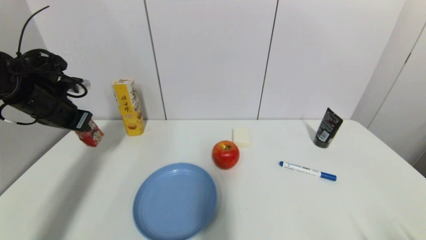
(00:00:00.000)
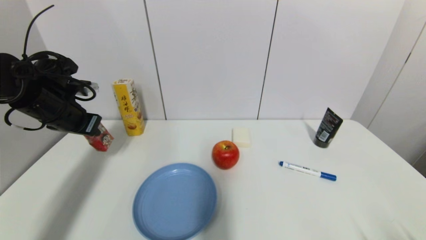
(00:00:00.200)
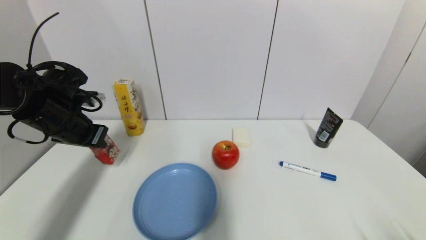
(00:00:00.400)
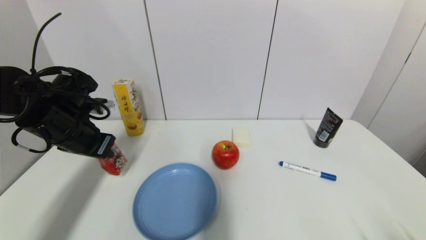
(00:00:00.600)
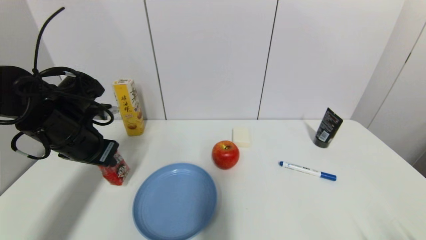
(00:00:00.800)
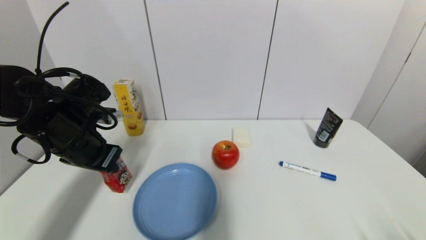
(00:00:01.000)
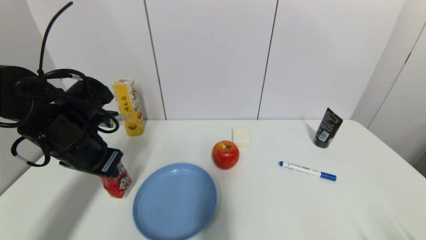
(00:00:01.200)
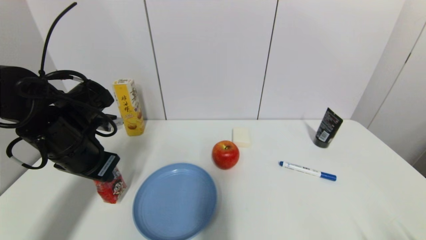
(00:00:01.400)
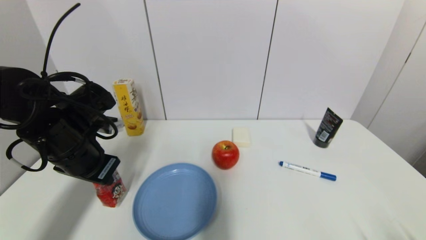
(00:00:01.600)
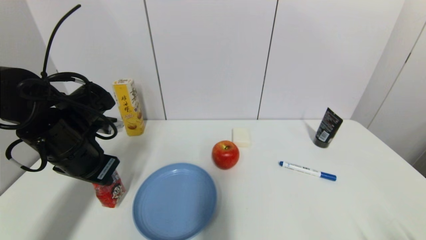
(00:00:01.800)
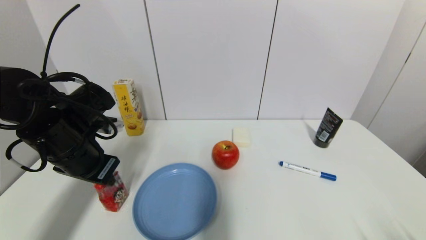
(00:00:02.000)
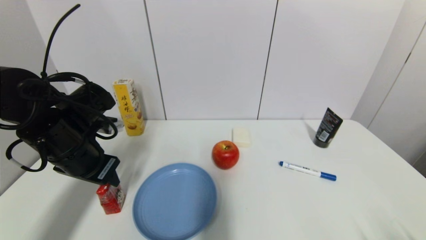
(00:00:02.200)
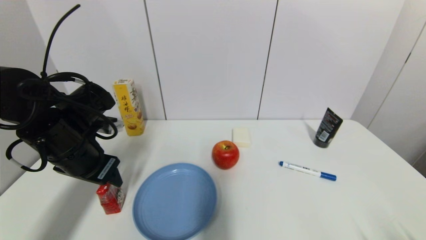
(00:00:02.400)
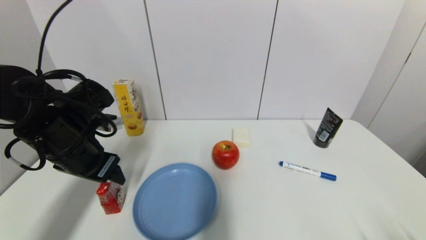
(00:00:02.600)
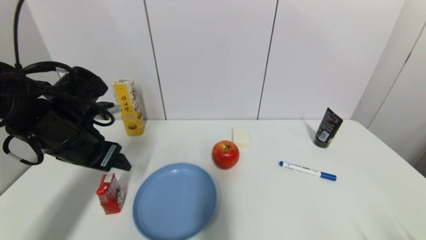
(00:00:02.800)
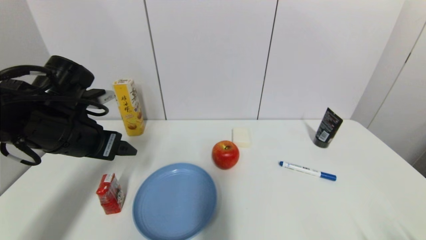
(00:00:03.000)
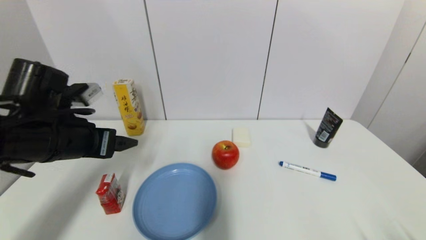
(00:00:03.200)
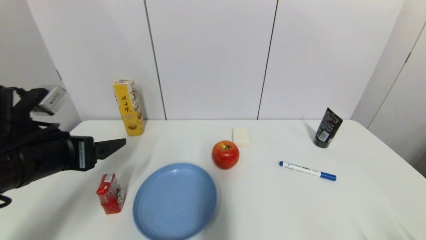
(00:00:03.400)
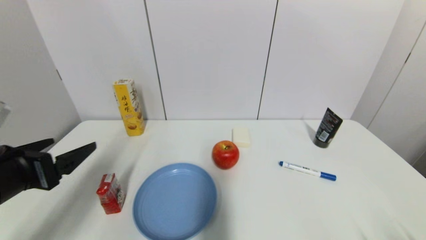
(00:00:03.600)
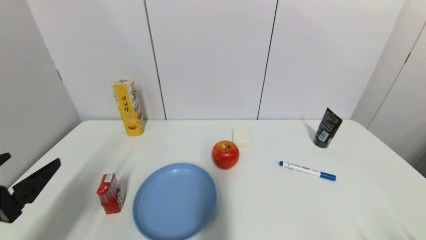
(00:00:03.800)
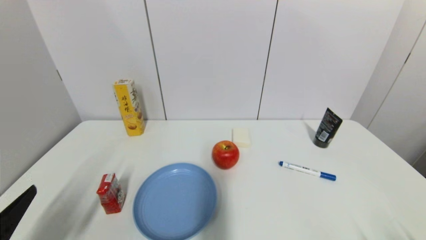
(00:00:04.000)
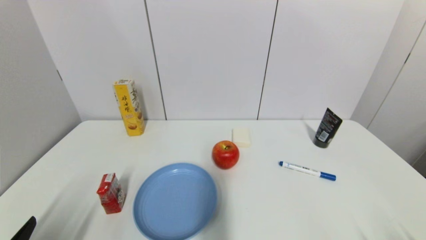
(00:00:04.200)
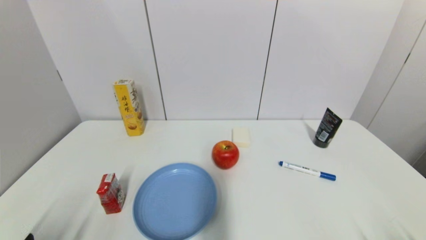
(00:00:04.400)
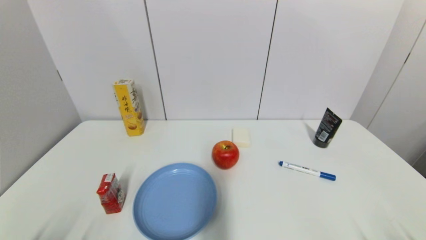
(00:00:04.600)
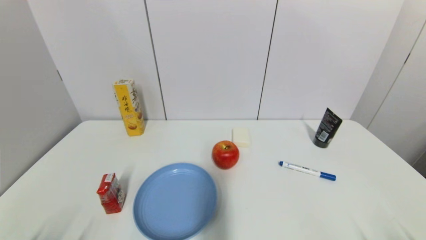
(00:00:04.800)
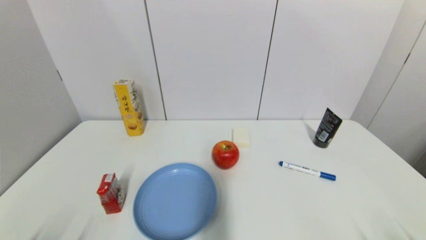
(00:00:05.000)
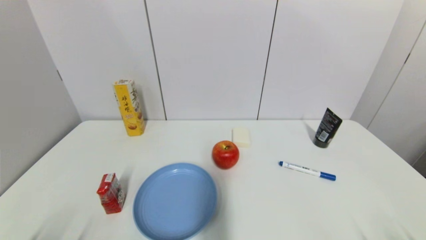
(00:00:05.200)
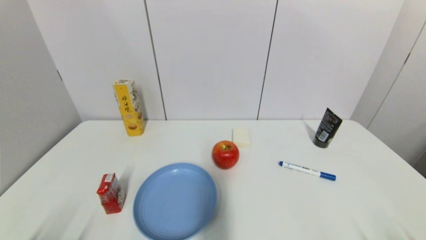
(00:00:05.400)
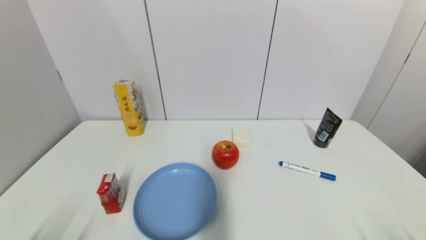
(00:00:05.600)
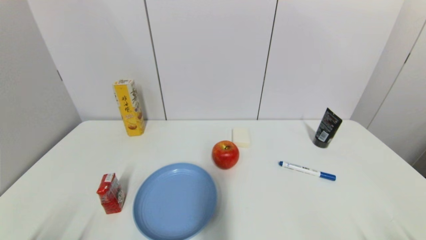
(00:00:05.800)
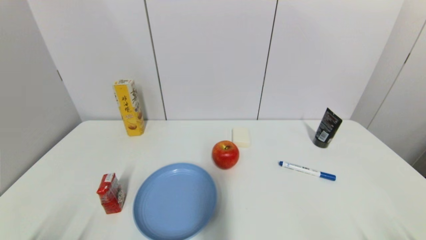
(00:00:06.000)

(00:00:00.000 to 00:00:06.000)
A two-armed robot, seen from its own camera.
Step, 00:00:00.000 - 00:00:02.000: Place the wangzai milk on the table with left gripper.
00:00:00.000 - 00:00:01.600: The left gripper moves to the right and backward, about 15 cm.
00:00:01.600 - 00:00:03.000: The left gripper opens its fingers.
00:00:03.000 - 00:00:04.400: The left gripper goes approximately 25 cm backward and downward.
